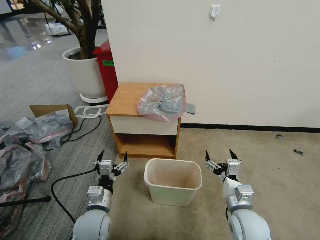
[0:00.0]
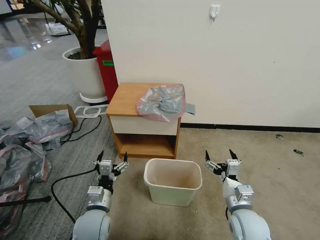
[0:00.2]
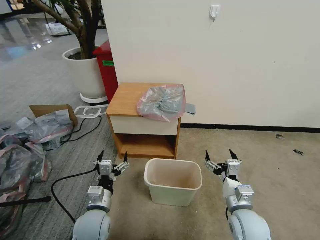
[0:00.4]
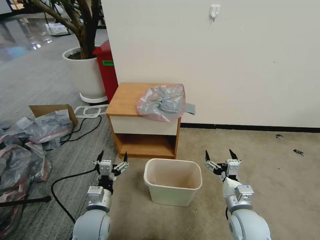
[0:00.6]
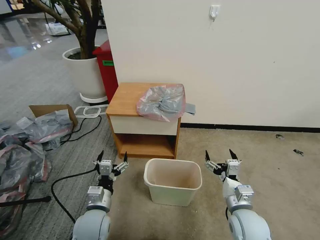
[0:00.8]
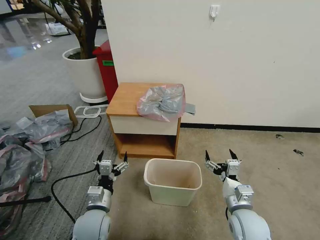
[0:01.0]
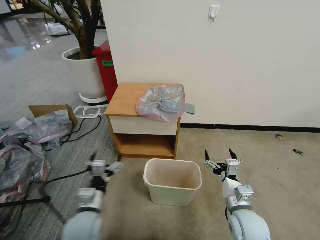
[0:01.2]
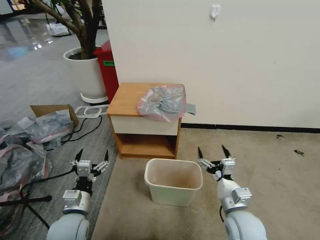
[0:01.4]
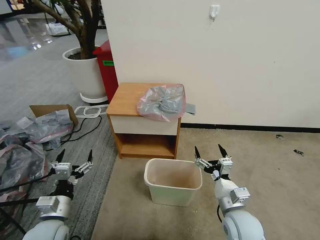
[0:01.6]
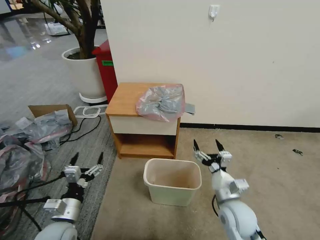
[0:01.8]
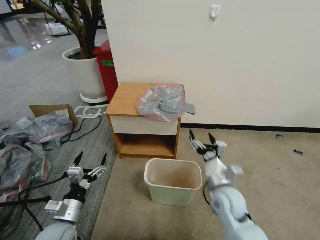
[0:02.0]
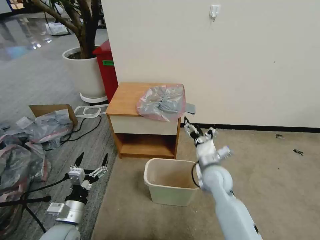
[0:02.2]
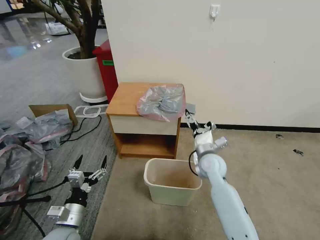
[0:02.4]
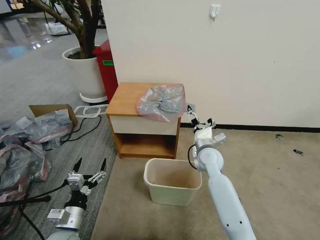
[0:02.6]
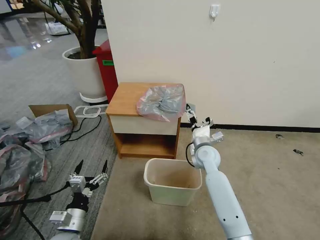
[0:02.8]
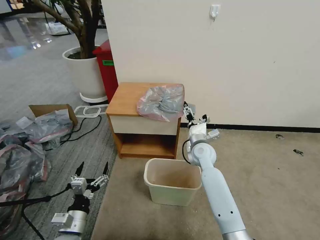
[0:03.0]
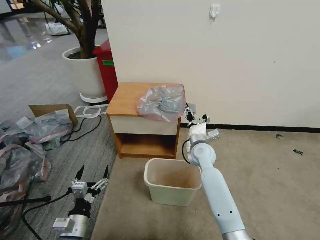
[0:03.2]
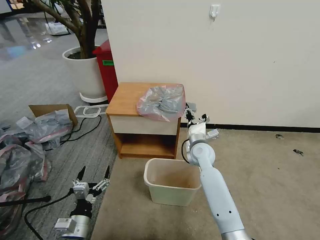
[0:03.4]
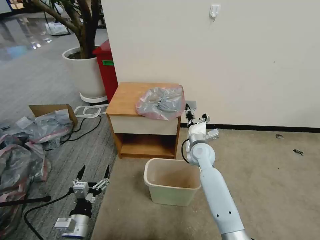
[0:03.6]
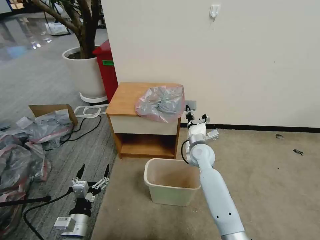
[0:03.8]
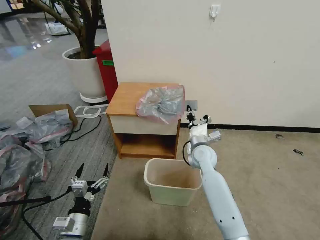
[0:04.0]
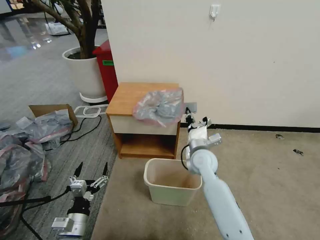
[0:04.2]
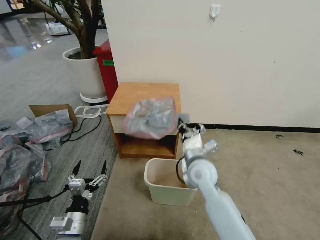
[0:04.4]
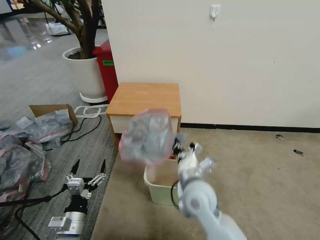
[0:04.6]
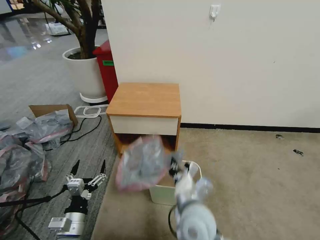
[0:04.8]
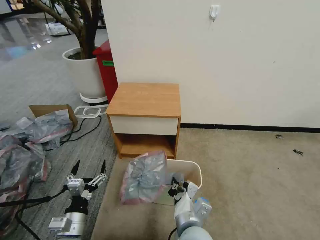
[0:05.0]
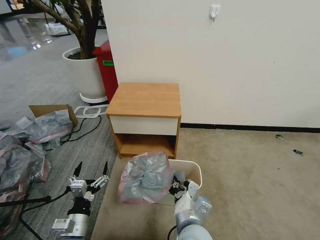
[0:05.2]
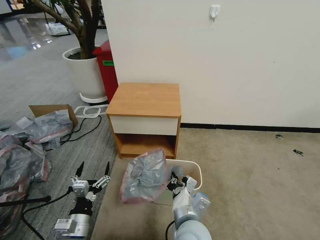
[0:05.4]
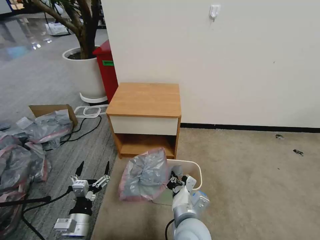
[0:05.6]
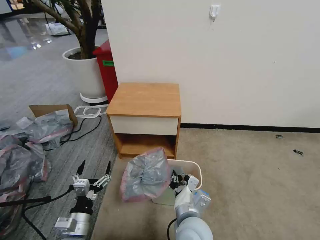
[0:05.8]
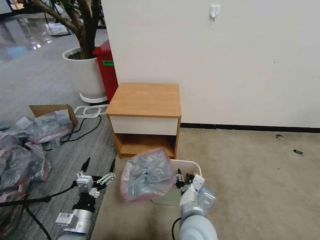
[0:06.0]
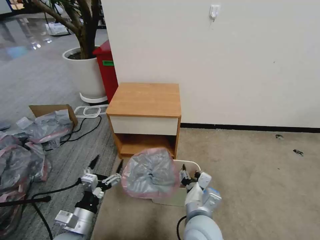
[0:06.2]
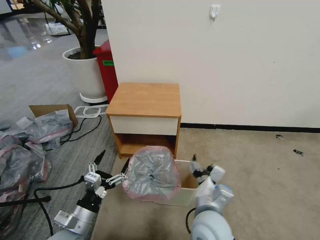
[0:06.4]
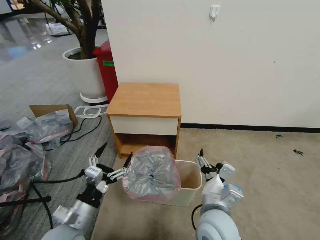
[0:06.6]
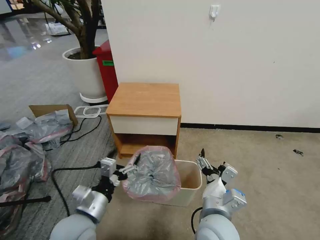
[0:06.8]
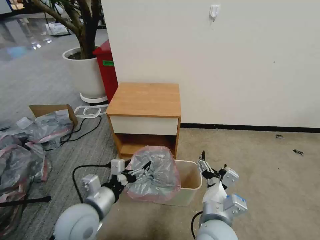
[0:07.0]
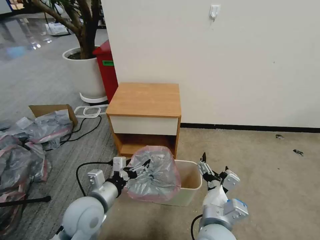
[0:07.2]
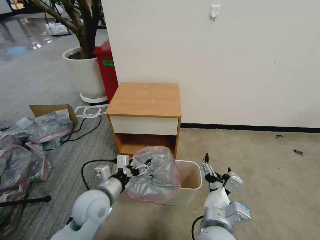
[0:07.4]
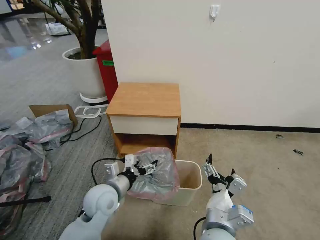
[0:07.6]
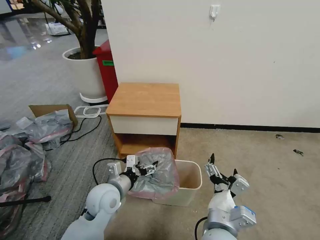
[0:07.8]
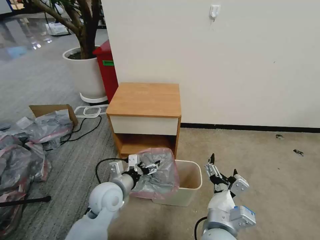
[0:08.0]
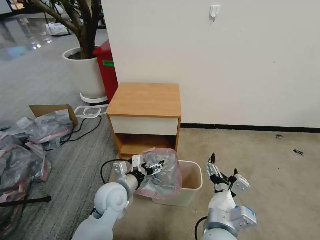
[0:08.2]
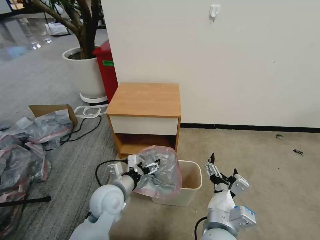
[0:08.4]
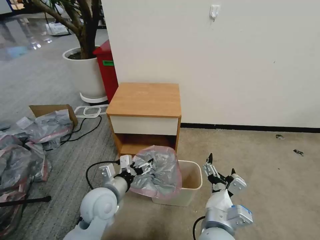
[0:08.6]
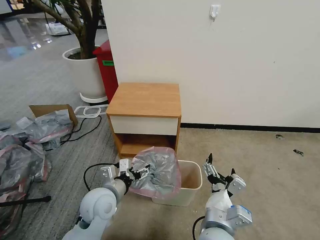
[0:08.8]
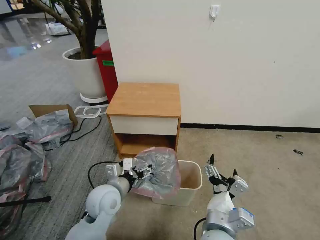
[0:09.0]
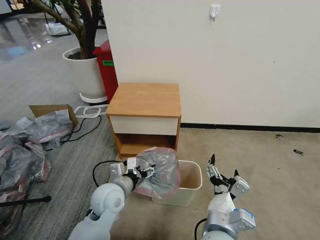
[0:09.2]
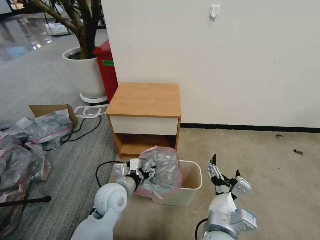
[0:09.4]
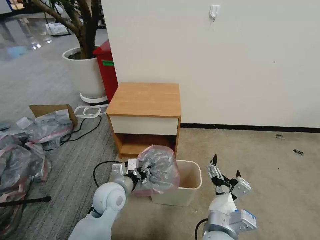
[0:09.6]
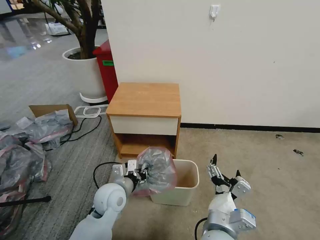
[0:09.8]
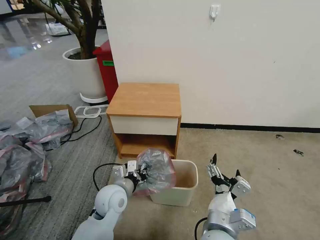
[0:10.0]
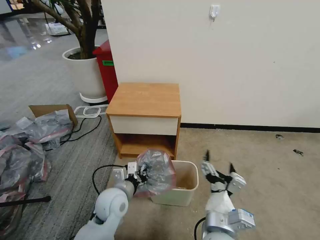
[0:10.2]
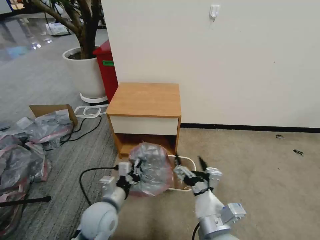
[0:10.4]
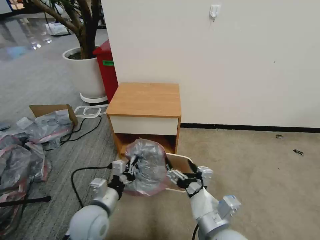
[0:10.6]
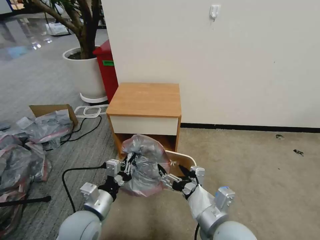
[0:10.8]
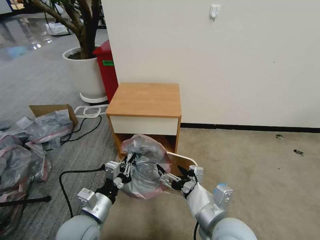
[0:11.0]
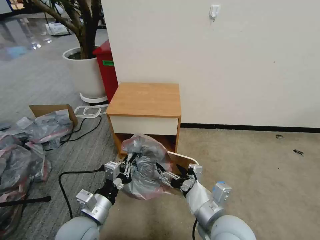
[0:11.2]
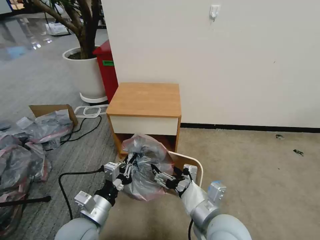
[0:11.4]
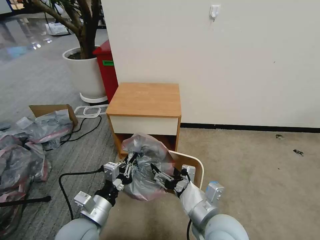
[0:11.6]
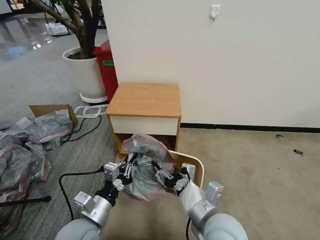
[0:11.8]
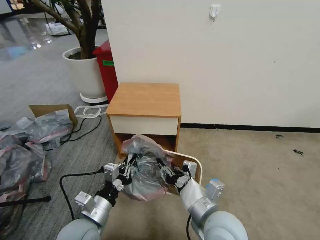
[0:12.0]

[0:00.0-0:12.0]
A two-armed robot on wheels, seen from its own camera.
Task of the whole recording: Pick up the garbage bag from the table and place it over the trash can.
0:01.6 to 0:03.0: The left gripper shifts approximately 5 cm downward. Meanwhile the right gripper heads forward, covering about 25 cm.
0:03.0 to 0:04.4: The right gripper travels backward by roughly 10 cm, and closes up.
0:04.4 to 0:06.0: The right gripper moves backward, roughly 15 cm, and opens its fingers.
0:06.0 to 0:07.6: The left gripper goes about 15 cm forward, to the right and upward. The right gripper shifts by some 5 cm, and opens.
0:07.6 to 0:09.0: The grippers stay close to where they were, moving slightly.
0:09.0 to 0:10.4: The left gripper closes.
0:10.4 to 0:12.0: The right gripper closes its fingers. Meanwhile the left gripper is displaced backward by some 5 cm.

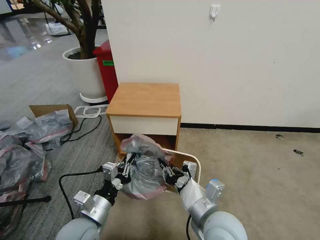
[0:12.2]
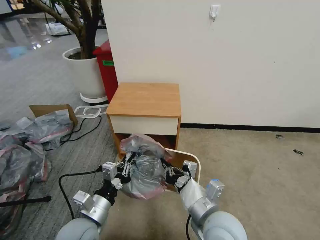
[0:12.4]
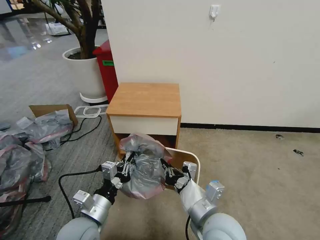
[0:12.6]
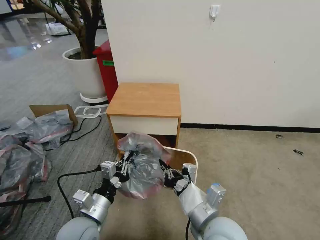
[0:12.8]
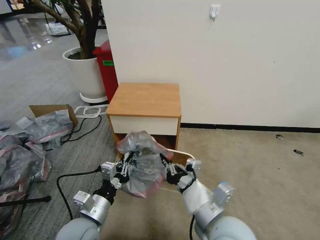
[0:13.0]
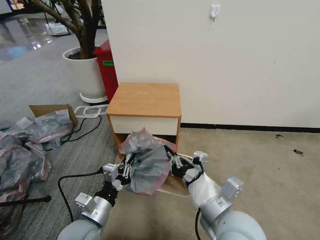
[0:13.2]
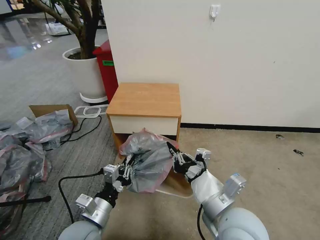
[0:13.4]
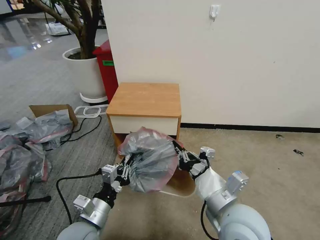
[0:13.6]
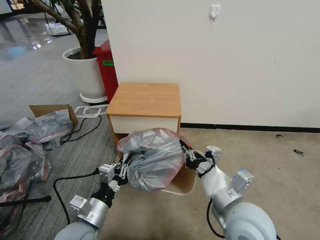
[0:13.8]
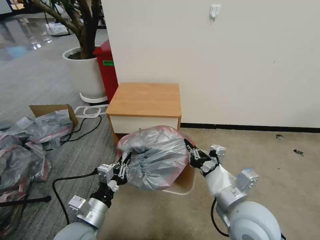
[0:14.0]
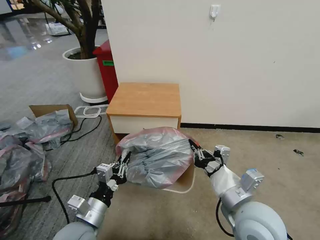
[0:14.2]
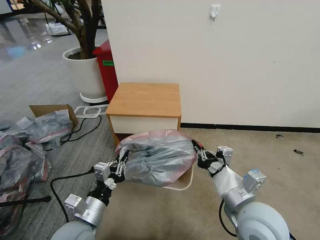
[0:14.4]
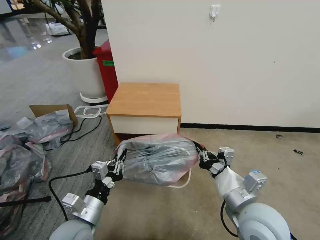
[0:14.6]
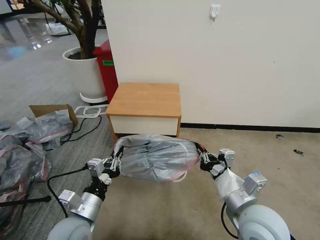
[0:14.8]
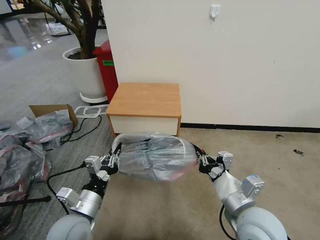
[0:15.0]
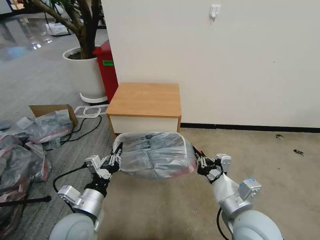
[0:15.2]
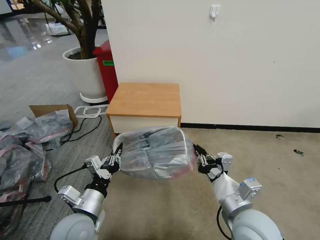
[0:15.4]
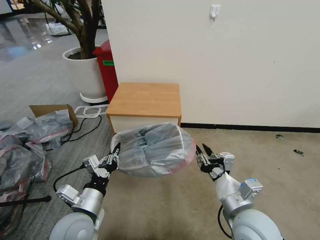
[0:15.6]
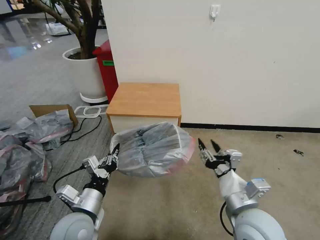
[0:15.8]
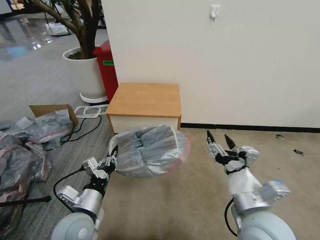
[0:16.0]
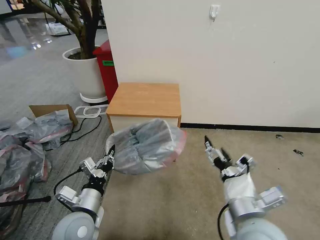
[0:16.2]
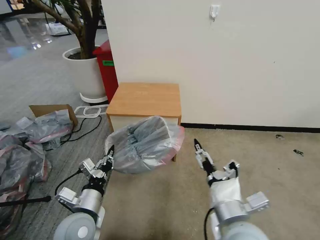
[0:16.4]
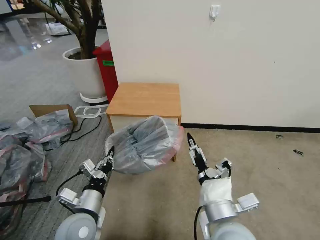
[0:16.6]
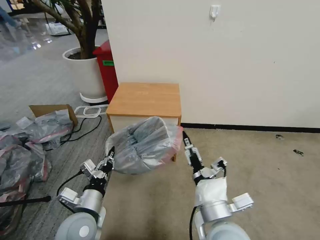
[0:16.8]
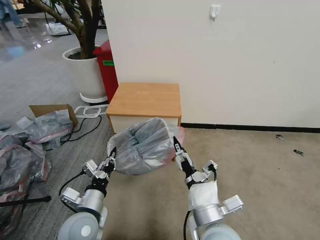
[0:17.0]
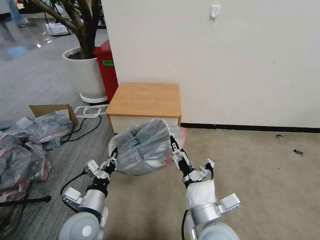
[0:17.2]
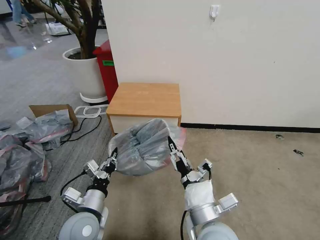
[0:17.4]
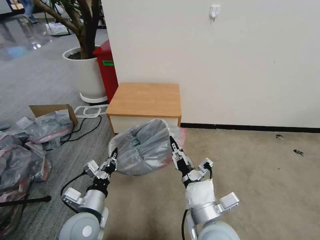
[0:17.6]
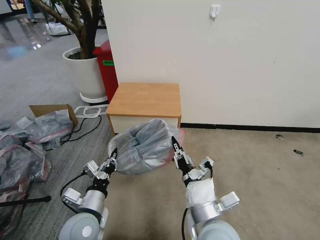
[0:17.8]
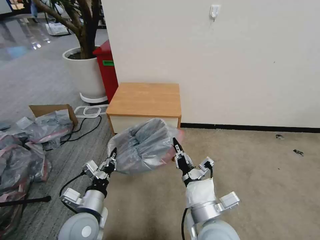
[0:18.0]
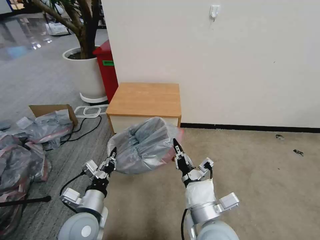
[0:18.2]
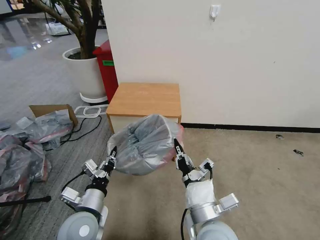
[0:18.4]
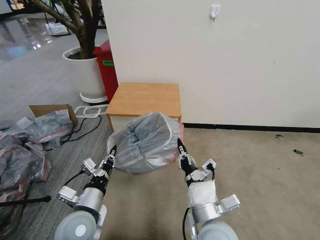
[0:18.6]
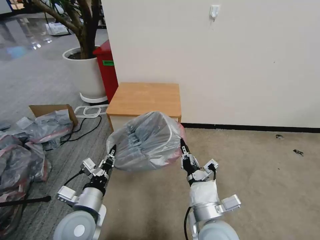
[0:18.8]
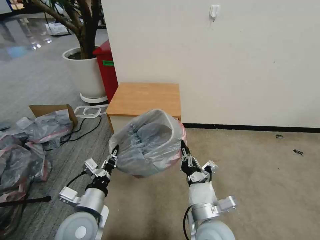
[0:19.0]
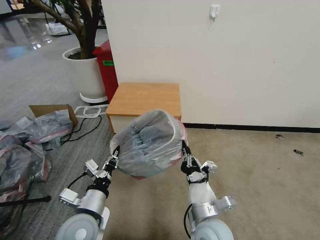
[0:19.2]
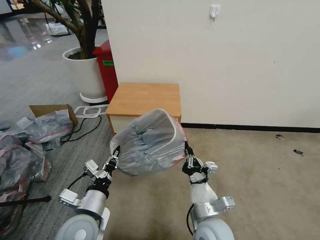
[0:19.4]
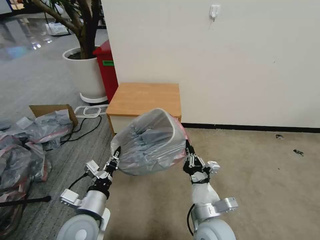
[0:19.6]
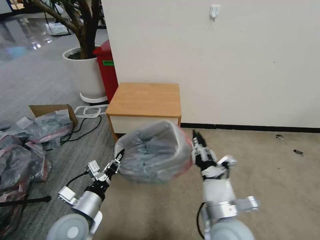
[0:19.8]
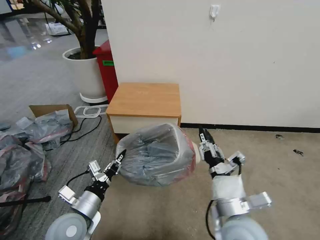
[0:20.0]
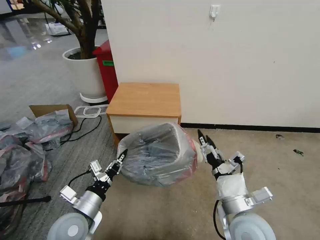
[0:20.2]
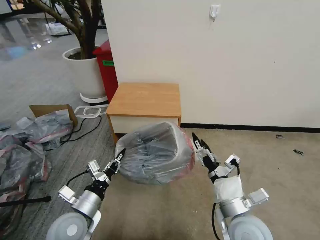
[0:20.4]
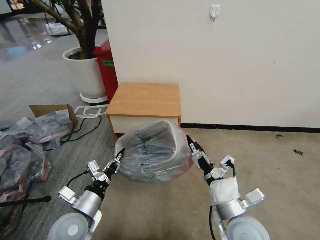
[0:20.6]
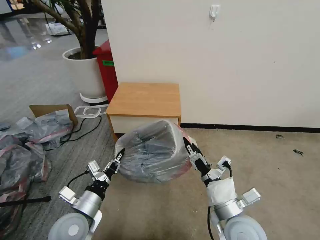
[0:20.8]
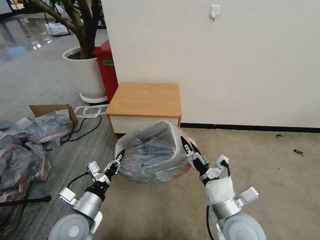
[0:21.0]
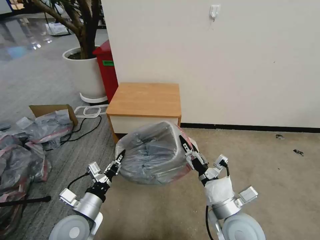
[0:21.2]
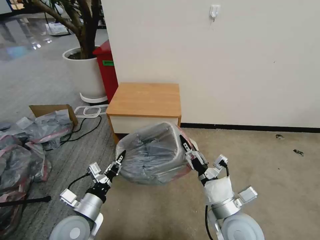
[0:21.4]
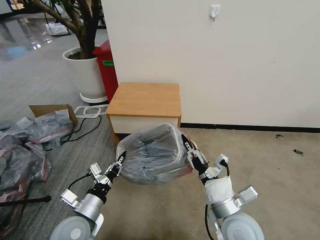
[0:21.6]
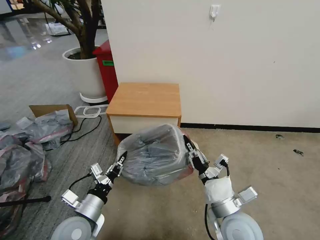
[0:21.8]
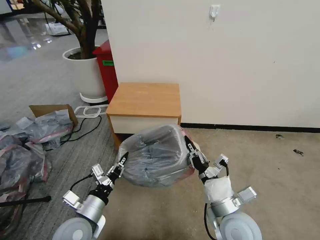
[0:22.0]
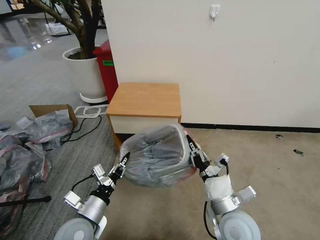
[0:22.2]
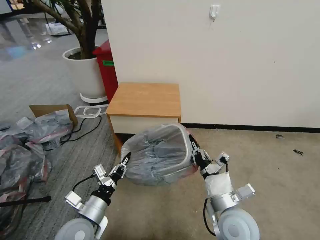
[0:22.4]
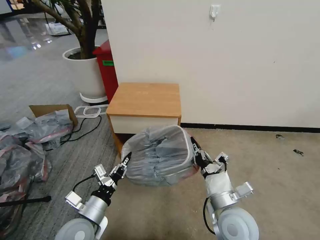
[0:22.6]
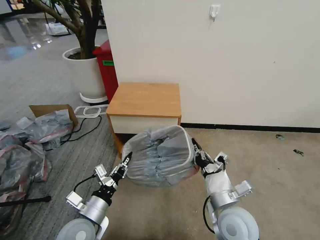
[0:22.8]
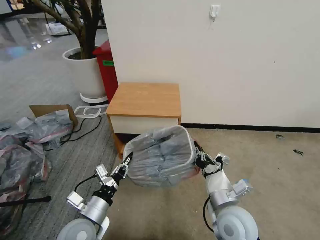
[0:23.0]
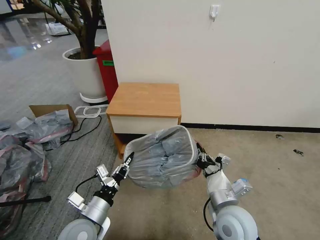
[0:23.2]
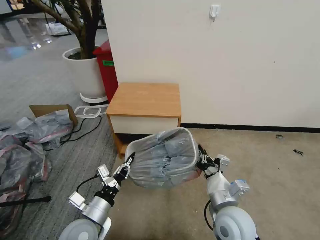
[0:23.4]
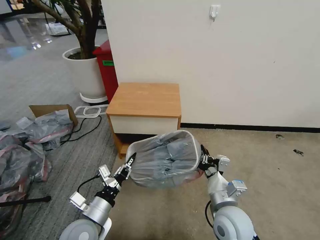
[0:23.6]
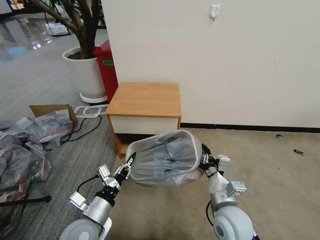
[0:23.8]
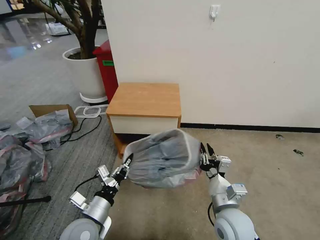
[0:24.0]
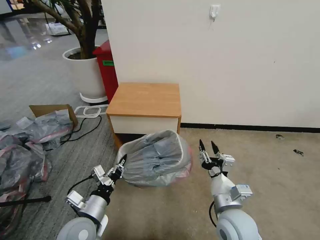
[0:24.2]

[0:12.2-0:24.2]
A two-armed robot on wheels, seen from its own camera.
Task of the whole recording: Pick up the garbage bag from the table and place it over the trash can.
0:12.2 to 0:13.8: The right gripper shifts by approximately 5 cm.
0:13.8 to 0:15.2: There are only small adjustments of the grippers.
0:15.2 to 0:16.6: The right gripper moves to the left, approximately 5 cm, and opens.
0:16.6 to 0:18.2: The right gripper closes.
0:19.8 to 0:21.2: The right gripper changes place by some 5 cm, and opens.
0:21.2 to 0:22.6: The right gripper closes.
0:22.6 to 0:24.2: The right gripper opens its fingers.
